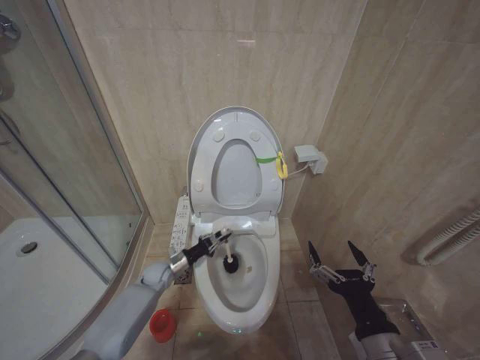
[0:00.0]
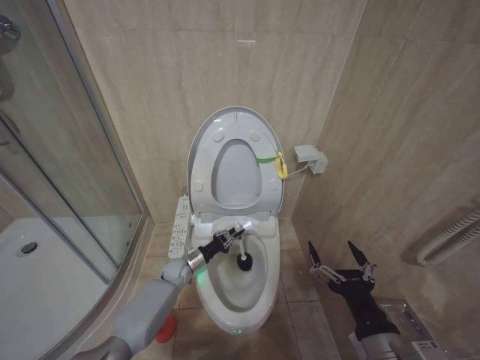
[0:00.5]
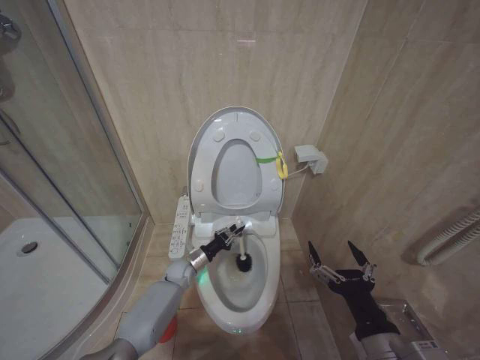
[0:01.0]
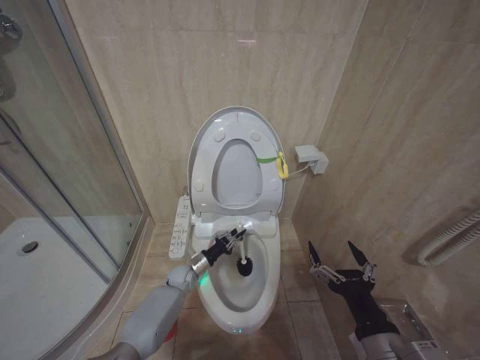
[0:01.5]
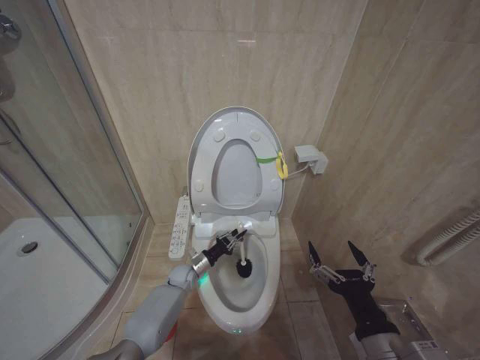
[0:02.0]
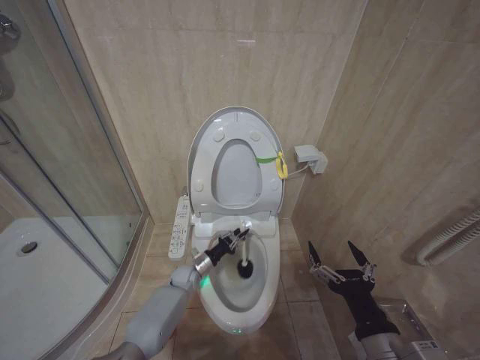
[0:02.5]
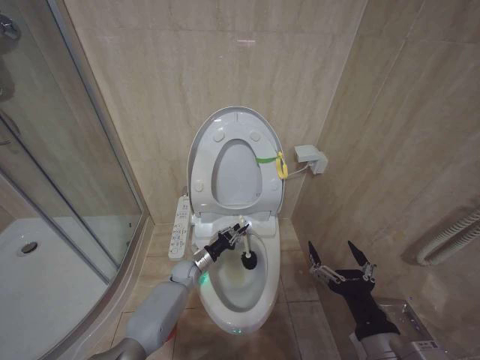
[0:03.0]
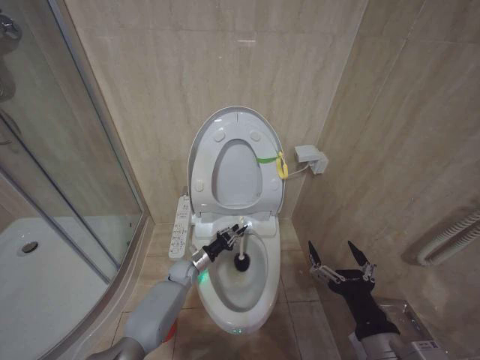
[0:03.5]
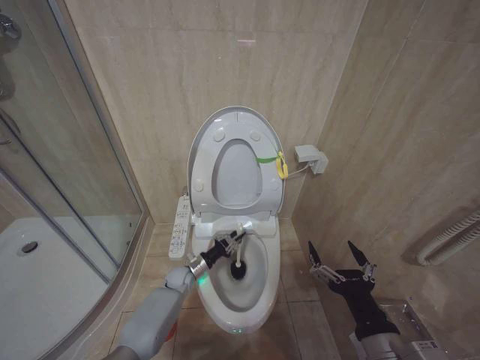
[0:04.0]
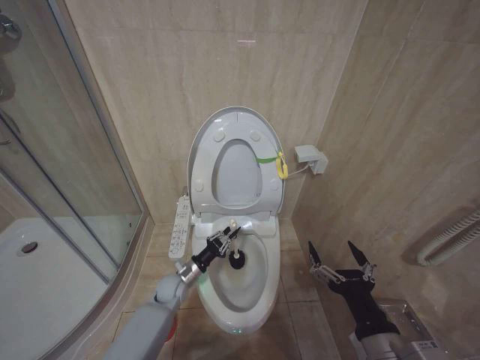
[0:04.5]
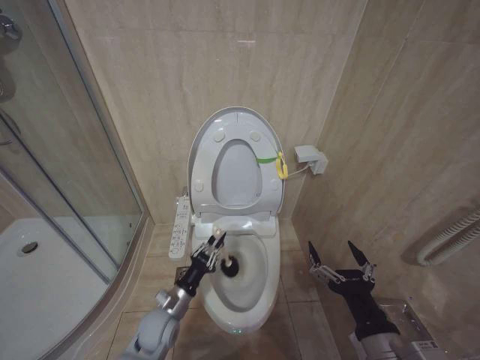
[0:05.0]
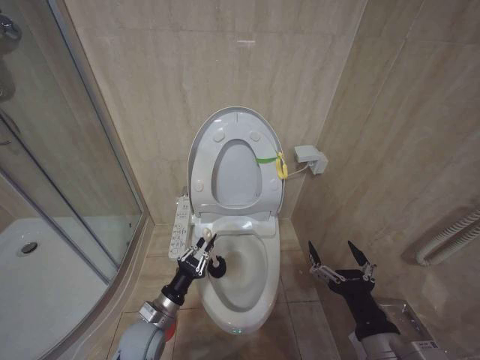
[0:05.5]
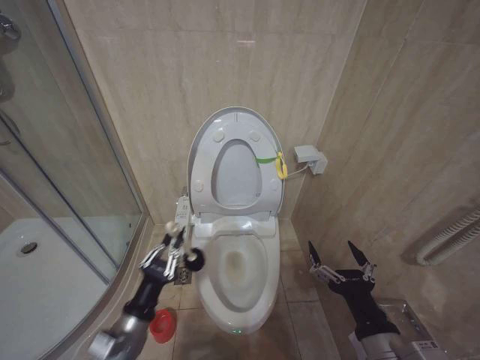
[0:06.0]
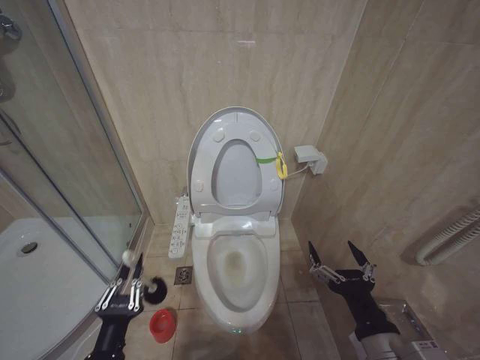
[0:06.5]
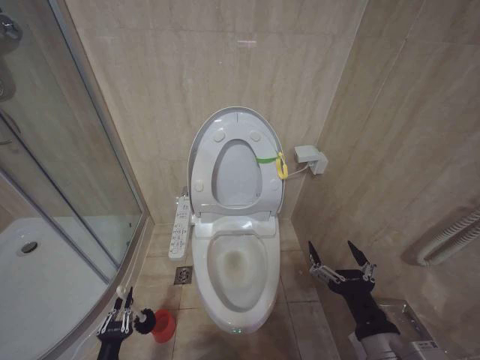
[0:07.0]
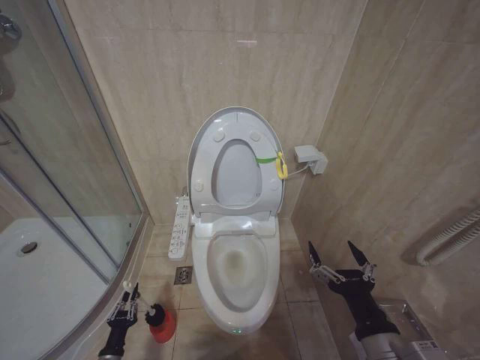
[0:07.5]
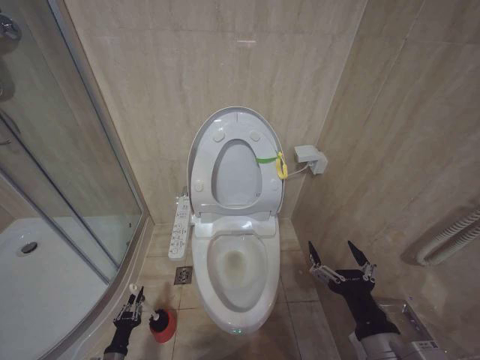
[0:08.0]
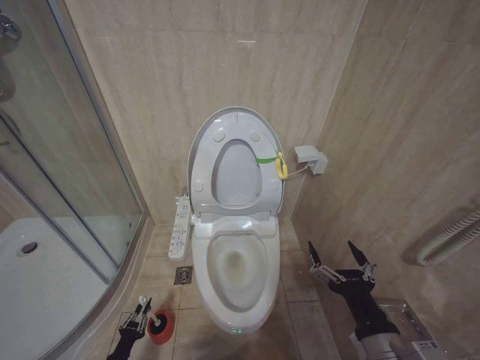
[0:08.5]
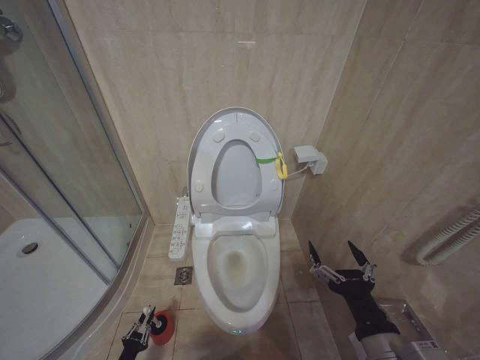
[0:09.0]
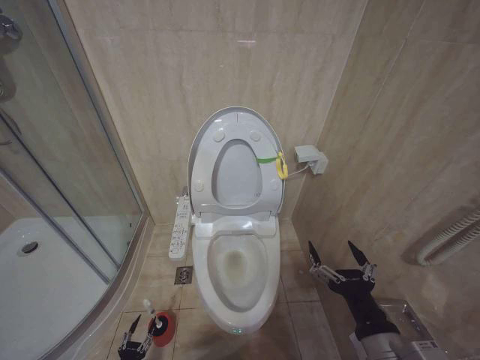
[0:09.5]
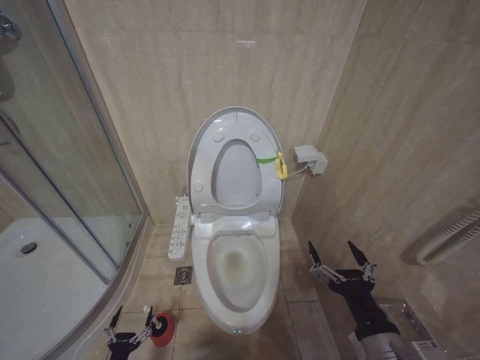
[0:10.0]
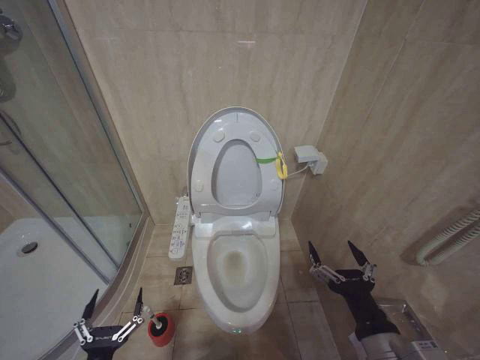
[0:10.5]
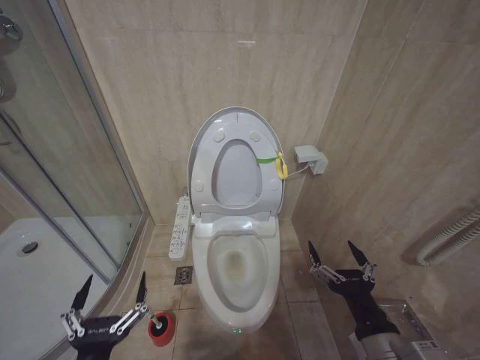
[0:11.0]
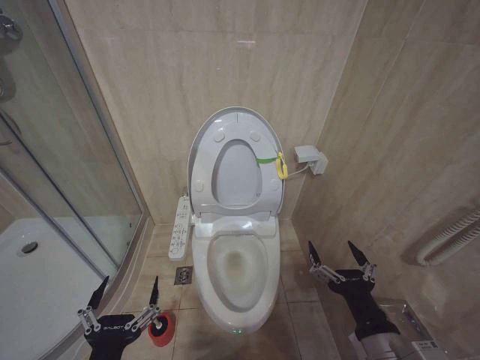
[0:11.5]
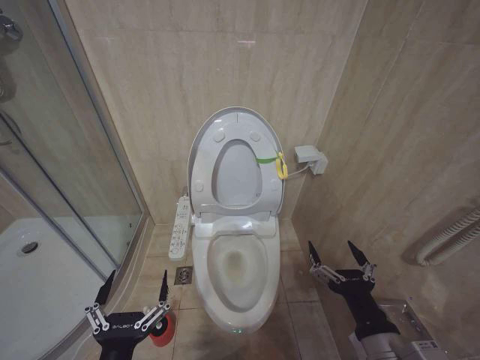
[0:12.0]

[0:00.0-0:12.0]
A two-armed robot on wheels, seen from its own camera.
Task of the whole recording: Open the toilet lid, clean the toilet bowl with a toilet brush, close the toilet lid, and flush.
0:00.0 to 0:02.0: The left gripper goes roughly 10 cm to the right.
0:04.0 to 0:06.0: The left gripper shifts approximately 30 cm backward and upward.
0:06.0 to 0:08.0: The left gripper moves downward and to the left, roughly 35 cm.
0:08.0 to 0:10.0: The left gripper heads backward, covering about 5 cm, and opens its fingers.
0:10.0 to 0:12.0: The left gripper moves upward and to the right, approximately 40 cm.

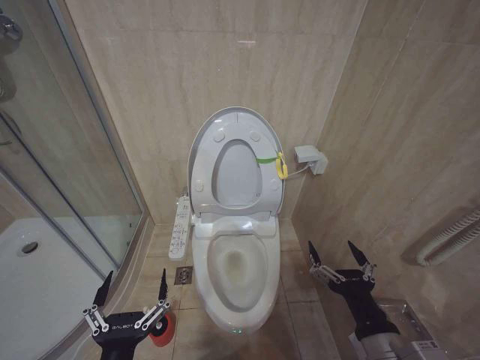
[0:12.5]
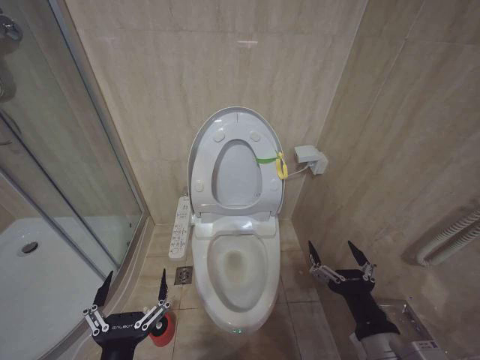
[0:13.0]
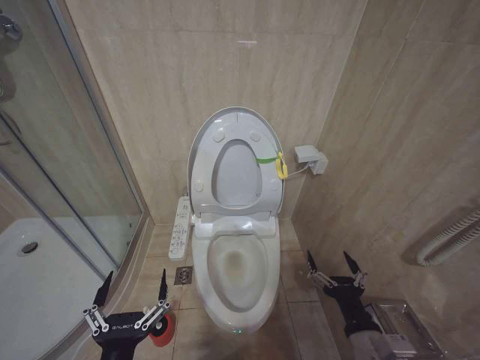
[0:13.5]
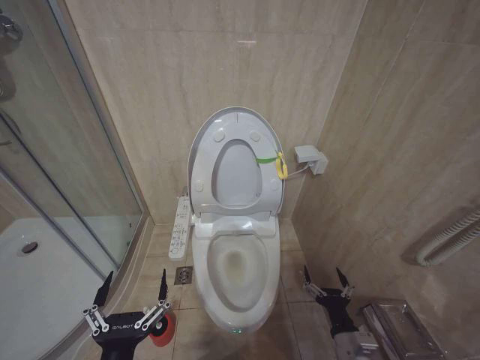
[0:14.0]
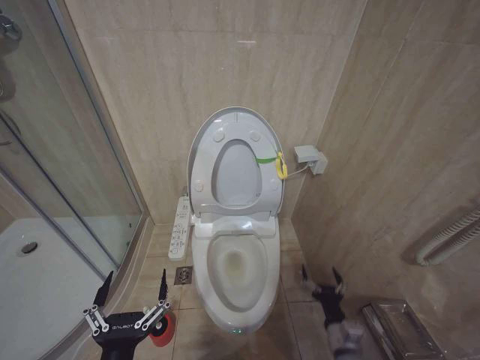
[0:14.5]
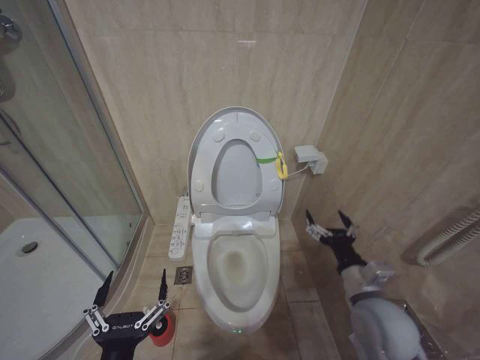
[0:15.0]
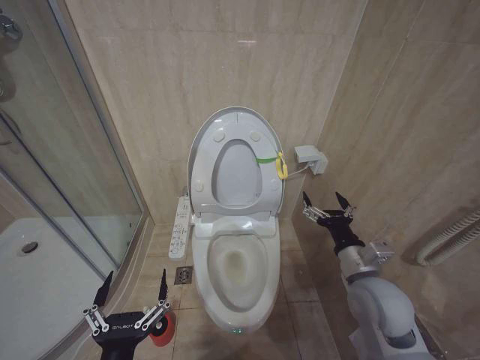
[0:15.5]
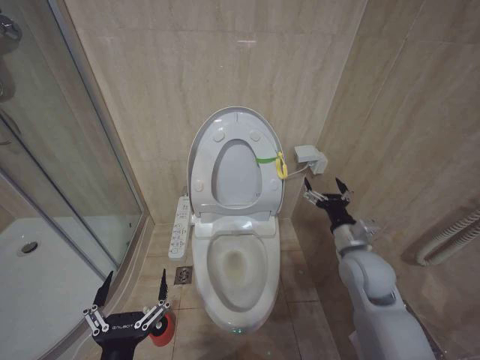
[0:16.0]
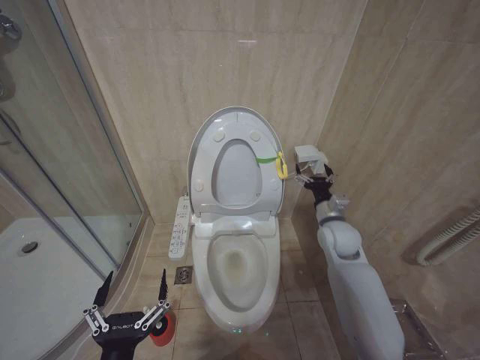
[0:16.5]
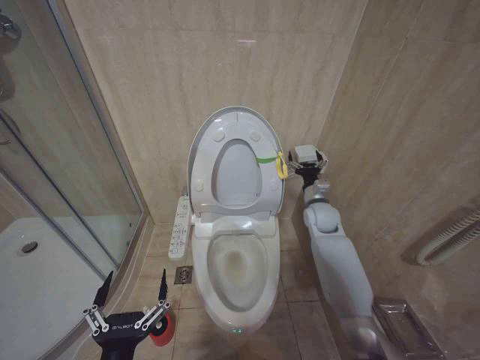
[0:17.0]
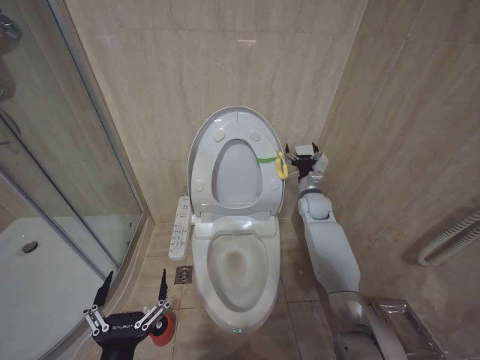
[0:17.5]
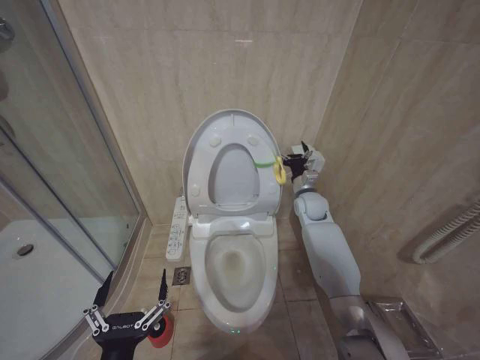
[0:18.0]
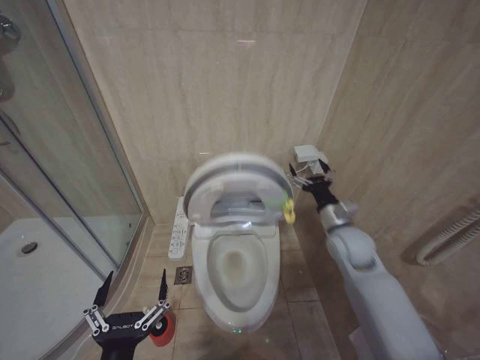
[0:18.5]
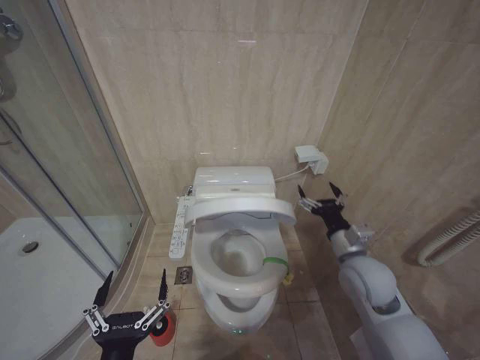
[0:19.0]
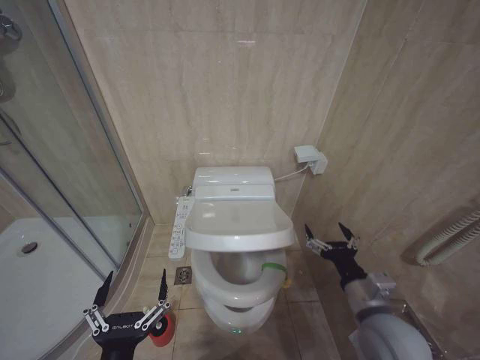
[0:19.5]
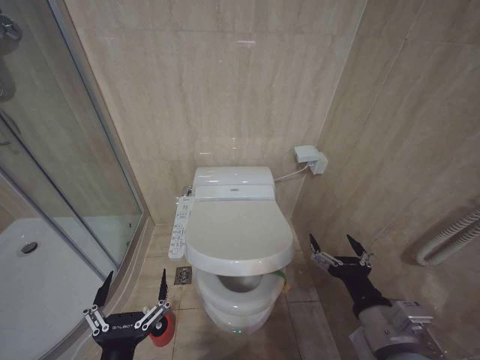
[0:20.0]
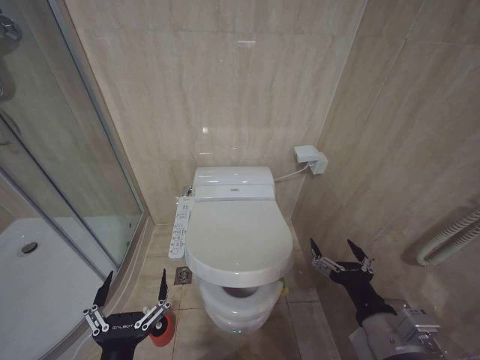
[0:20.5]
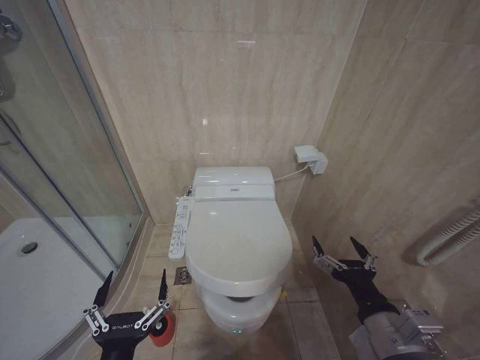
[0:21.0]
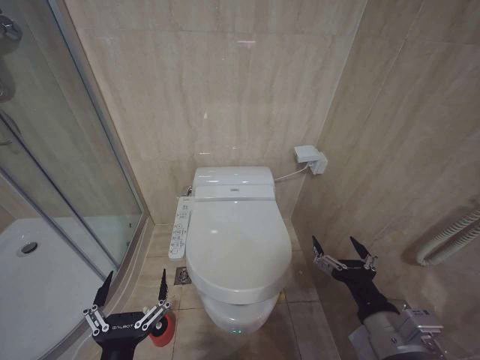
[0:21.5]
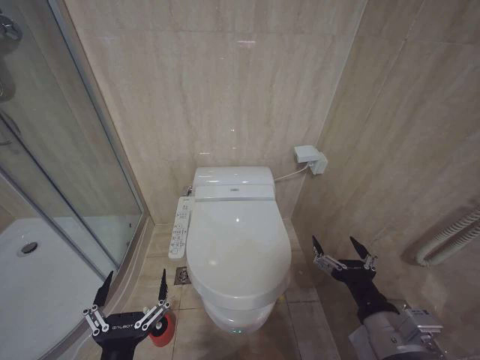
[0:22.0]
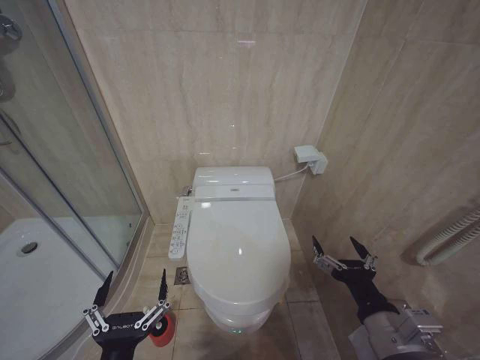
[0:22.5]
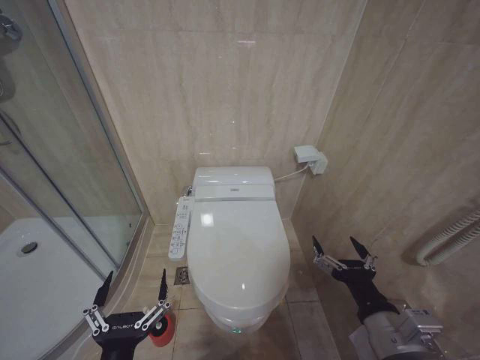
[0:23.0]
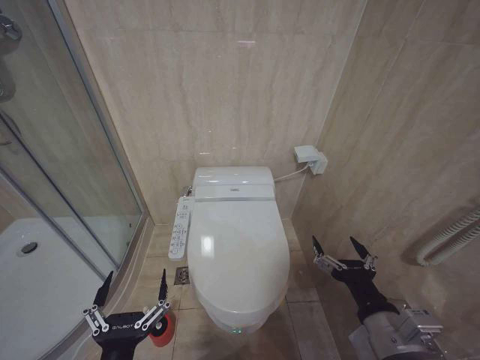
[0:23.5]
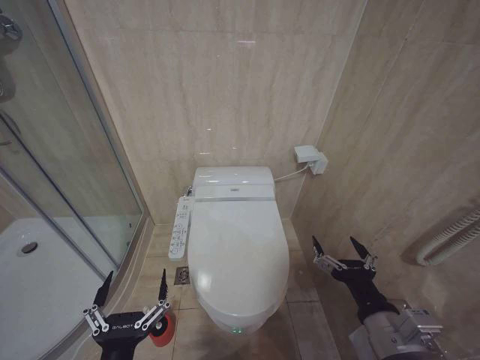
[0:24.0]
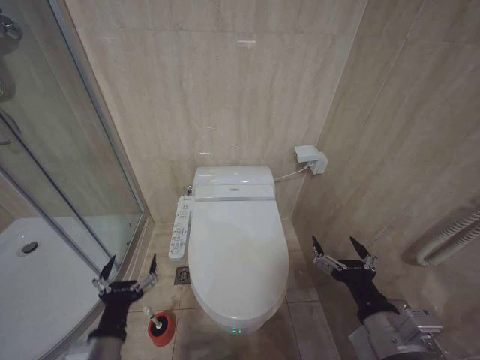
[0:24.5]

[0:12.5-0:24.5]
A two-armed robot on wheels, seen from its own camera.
Task of the whole recording: Open the toilet lid, clean the toilet bowl with a toilet brush, close the toilet lid, and flush.
0:12.5 to 0:14.5: The right gripper shifts approximately 25 cm downward.
0:14.5 to 0:16.5: The right gripper is displaced forward and upward by about 30 cm.
0:16.5 to 0:18.5: The right gripper goes forward and returns, some 15 cm each way.
0:18.5 to 0:20.5: The right gripper shifts about 30 cm backward.
0:20.5 to 0:22.5: Both grippers stay put.
0:22.5 to 0:24.5: The left gripper heads forward, covering about 5 cm.

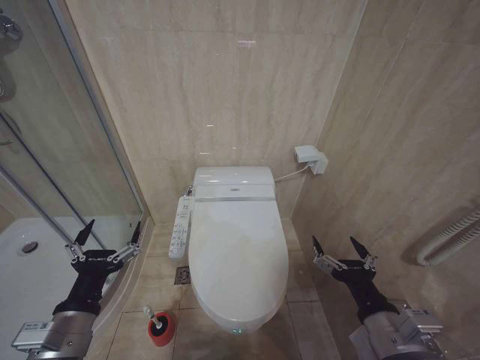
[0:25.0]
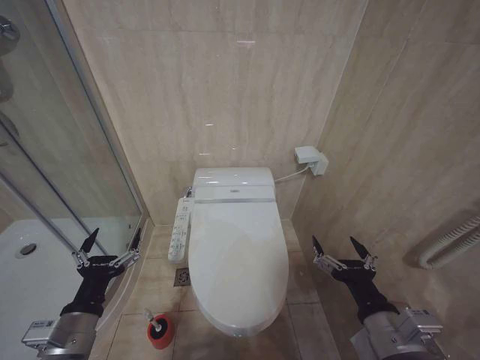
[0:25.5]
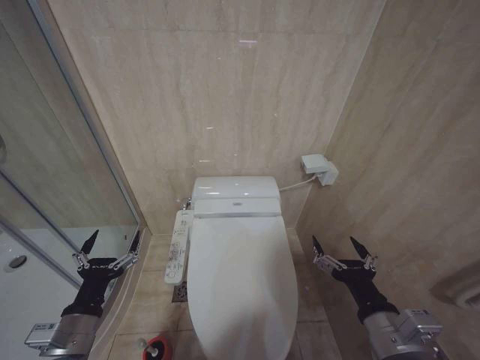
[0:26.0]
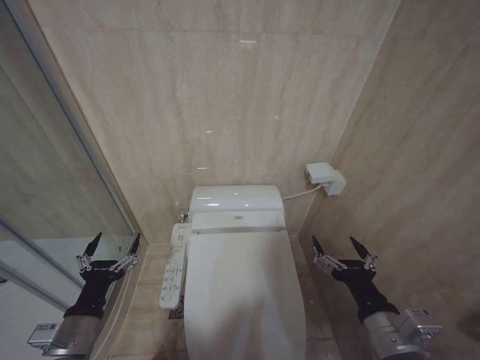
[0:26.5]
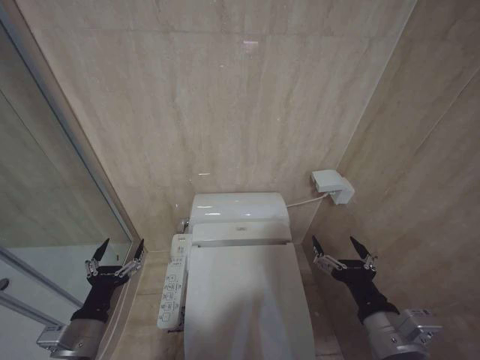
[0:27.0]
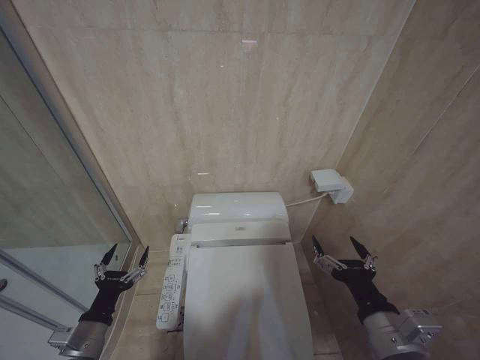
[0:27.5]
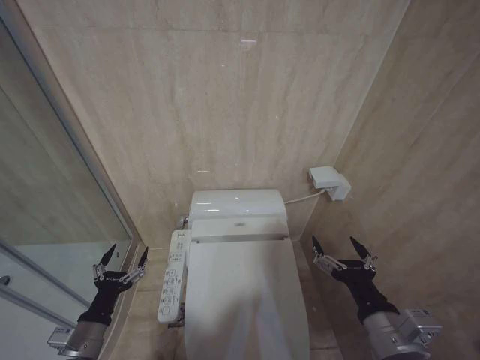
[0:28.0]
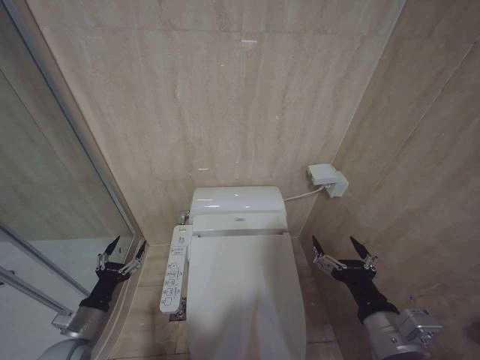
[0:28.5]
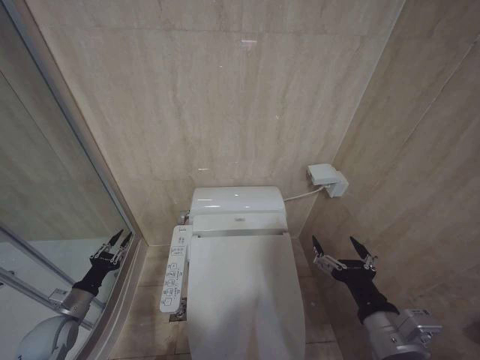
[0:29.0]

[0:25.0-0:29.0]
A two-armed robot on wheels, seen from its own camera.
Task of the whole recording: Open the toilet lid, clean the toilet bowl with a toilet brush, close the toilet lid, and flush.
0:25.0 to 0:27.0: The left gripper travels downward by approximately 10 cm.
0:27.0 to 0:29.0: The left gripper shifts about 20 cm to the left, forward and downward, and closes up.
